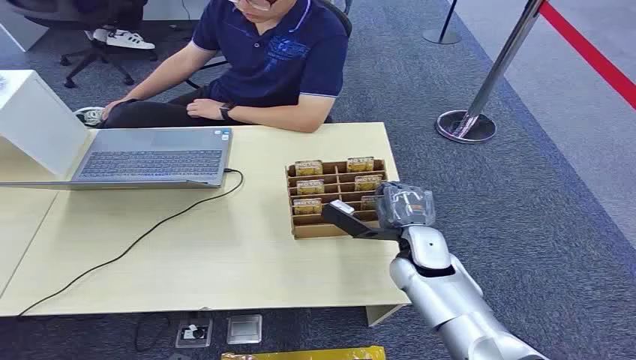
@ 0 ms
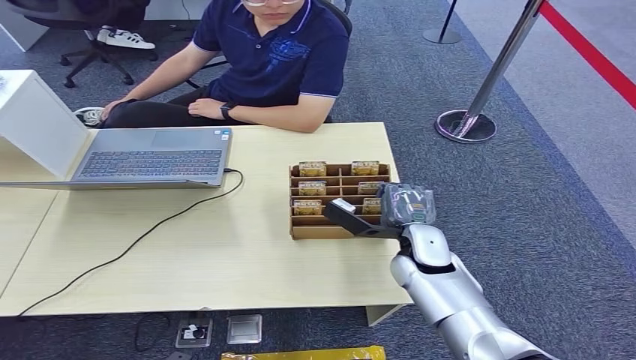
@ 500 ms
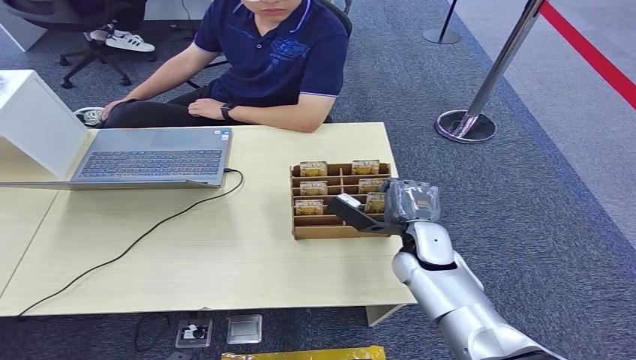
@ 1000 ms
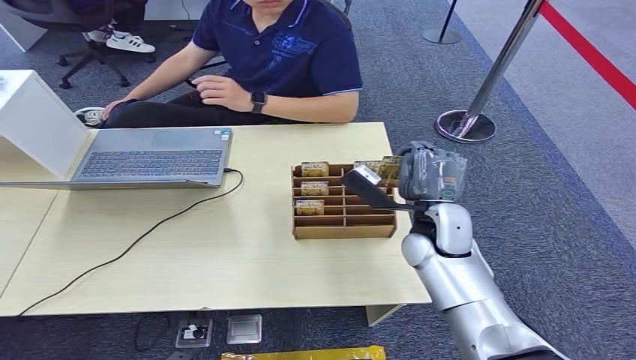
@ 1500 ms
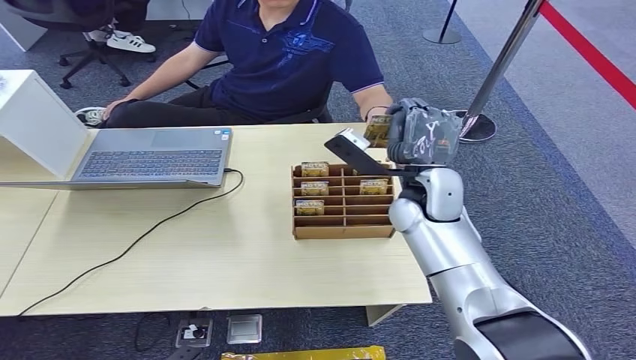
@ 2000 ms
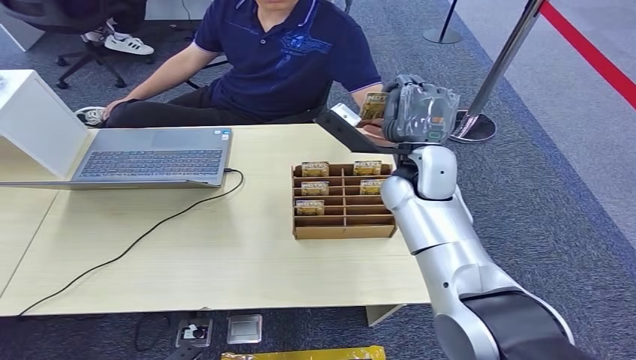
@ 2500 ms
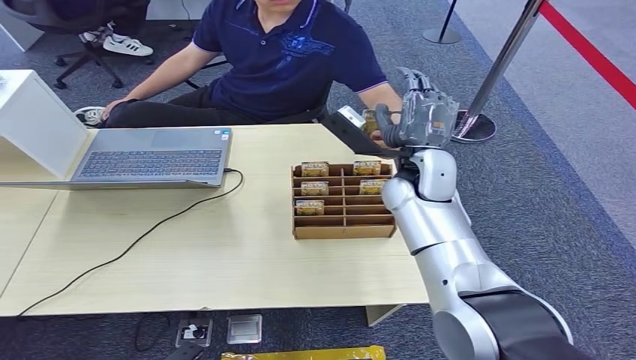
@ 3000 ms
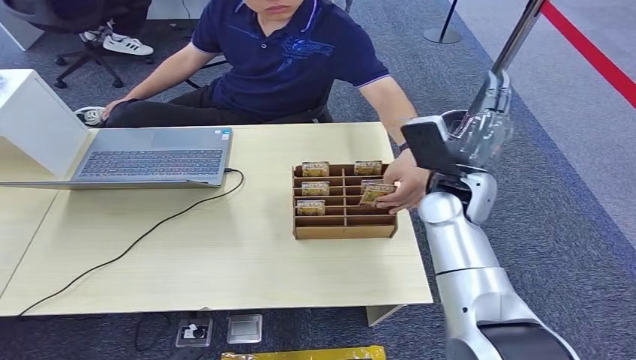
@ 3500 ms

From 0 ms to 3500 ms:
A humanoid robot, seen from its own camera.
Step, from 0 ms to 1500 ms: Pick up the room card from the card holder.
Step, from 2000 ms to 3500 ms: Hand the room card to the target.

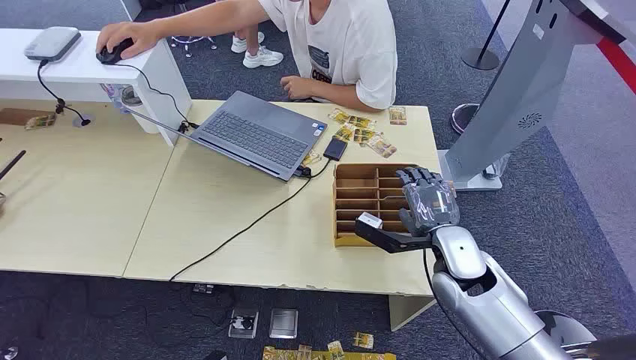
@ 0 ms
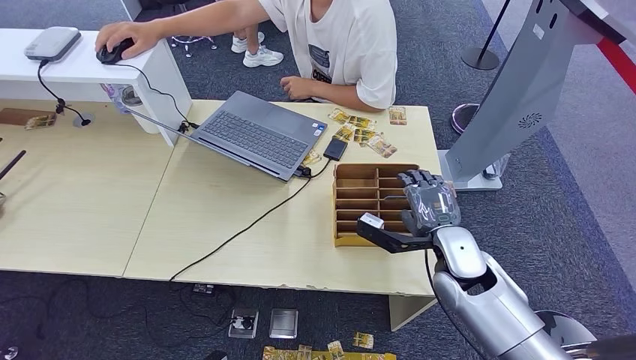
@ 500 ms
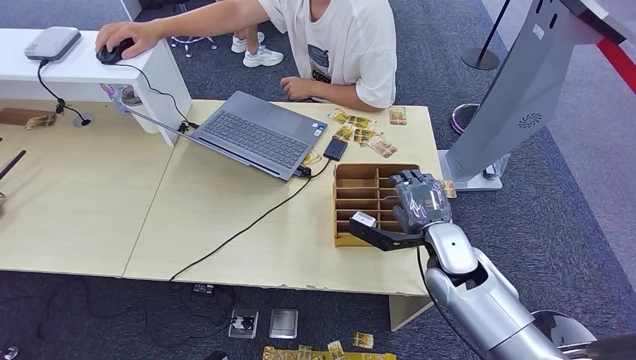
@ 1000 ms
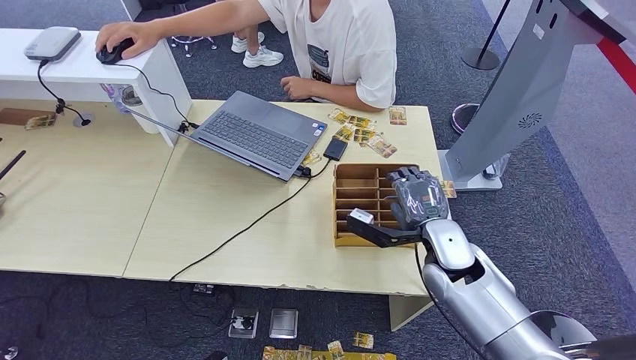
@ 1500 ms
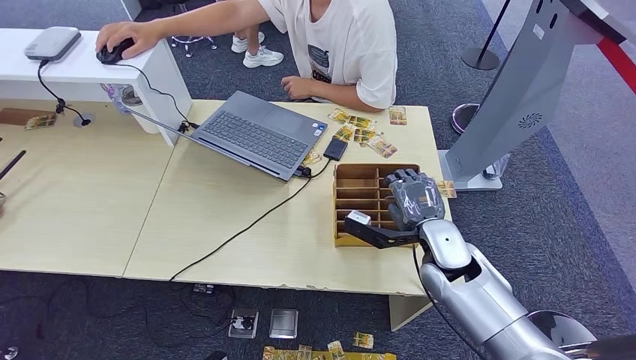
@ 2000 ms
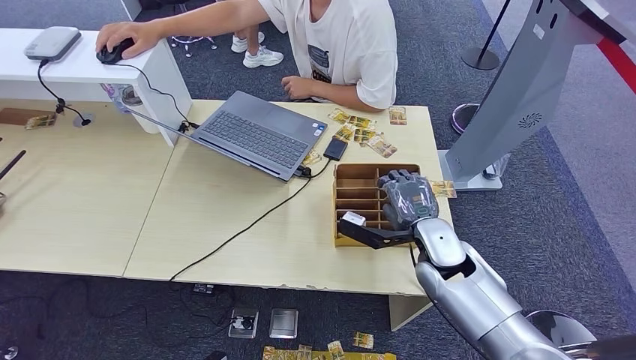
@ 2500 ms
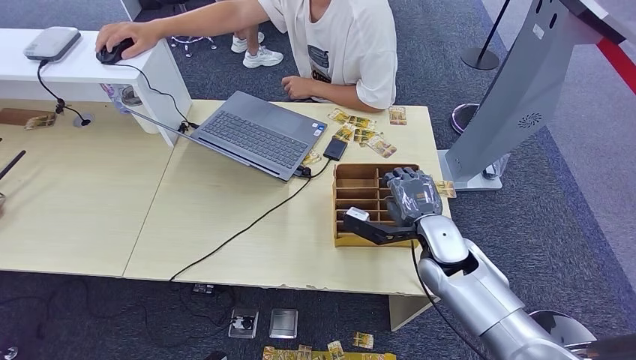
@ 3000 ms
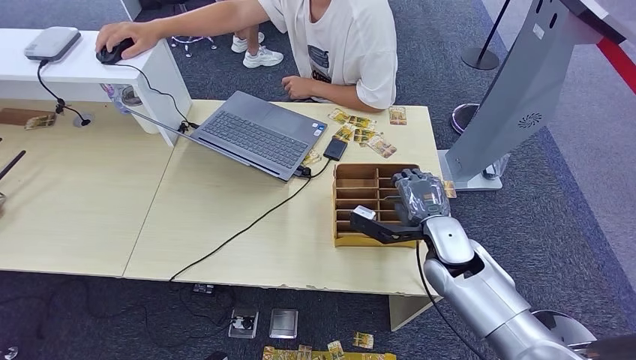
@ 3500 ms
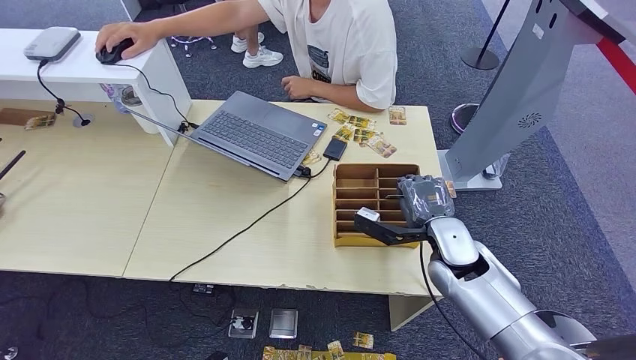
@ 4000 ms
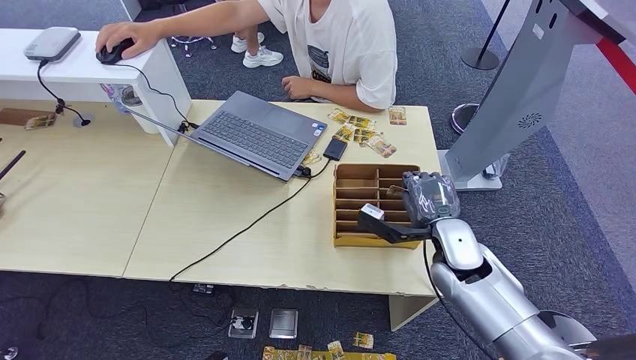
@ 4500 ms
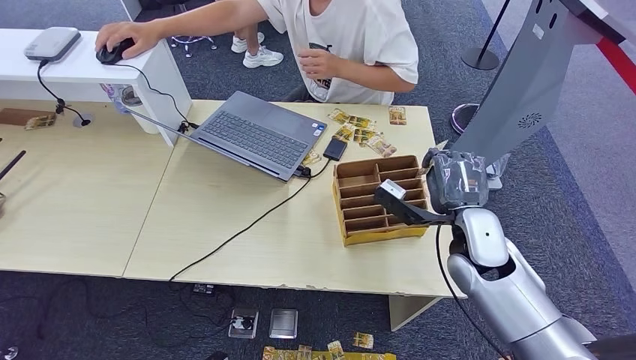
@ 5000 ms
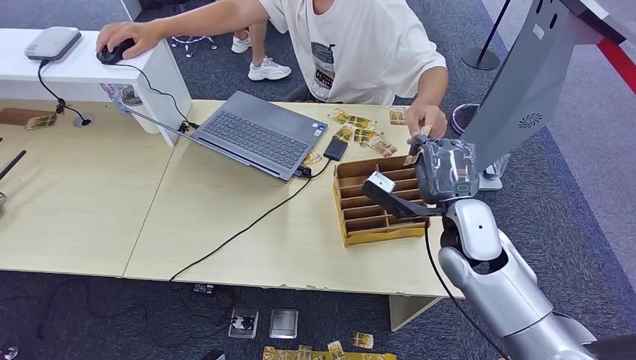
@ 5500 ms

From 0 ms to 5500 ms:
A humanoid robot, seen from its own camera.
Step, from 0 ms to 5000 ms: Pick up the room card from the card holder.
From 2000 ms to 3500 ms: The hands stay close to where they were, moving slightly.
From 3500 ms to 5500 ms: The right hand moves upward, roughly 5 cm.
